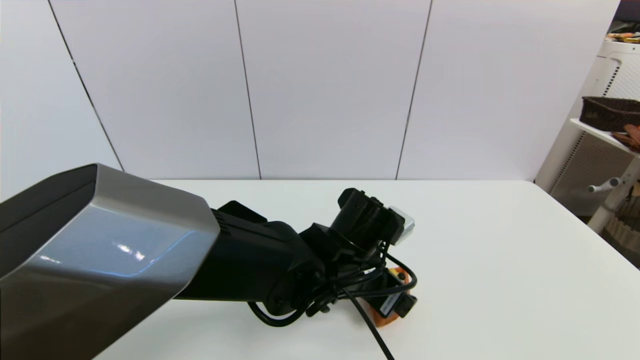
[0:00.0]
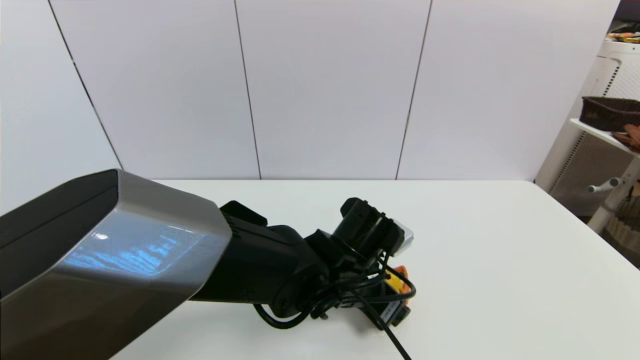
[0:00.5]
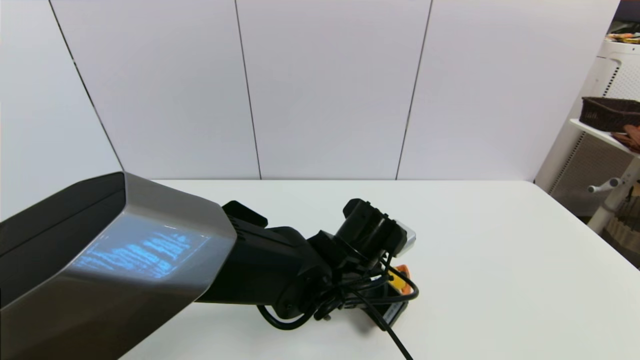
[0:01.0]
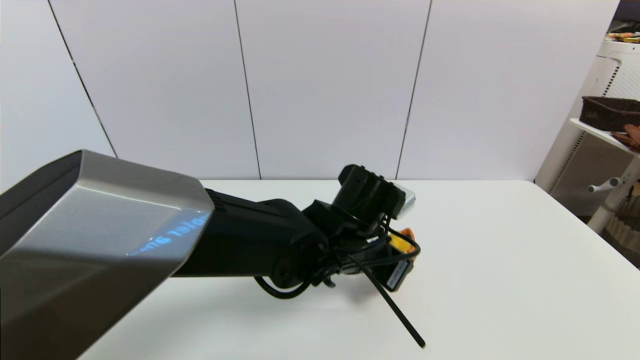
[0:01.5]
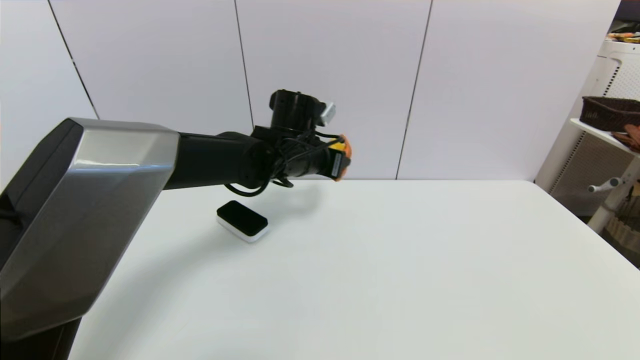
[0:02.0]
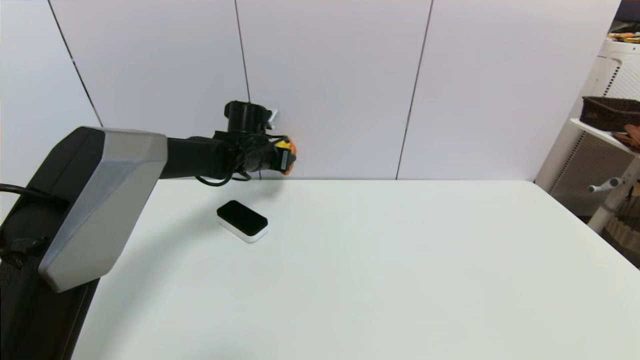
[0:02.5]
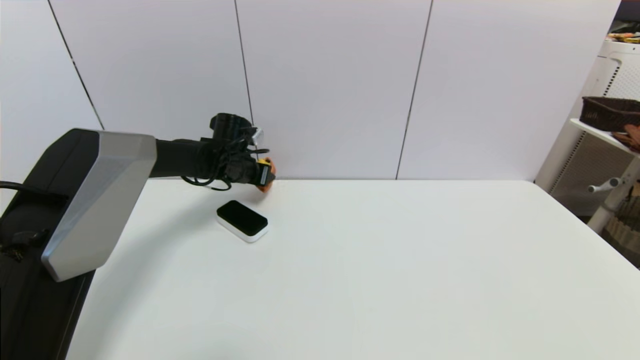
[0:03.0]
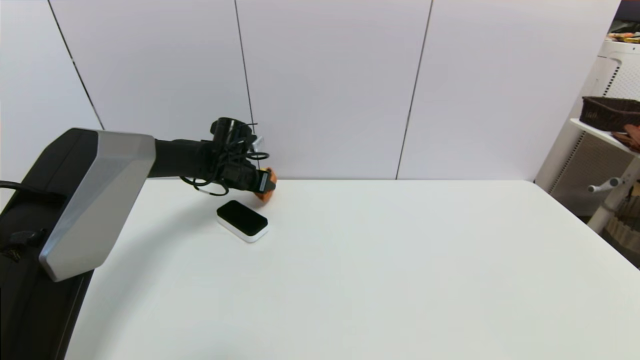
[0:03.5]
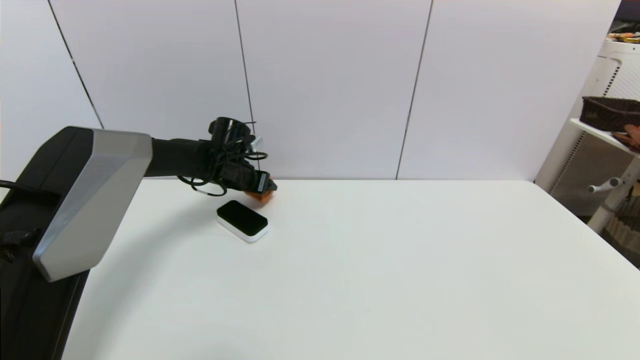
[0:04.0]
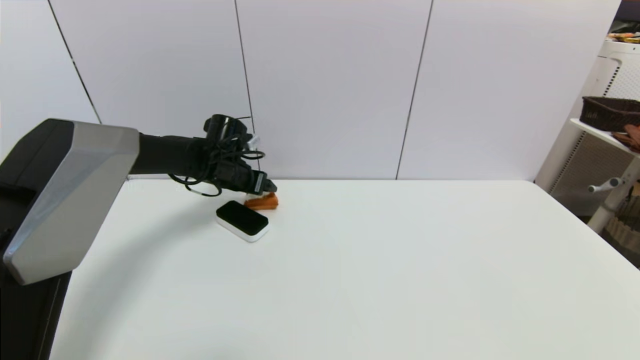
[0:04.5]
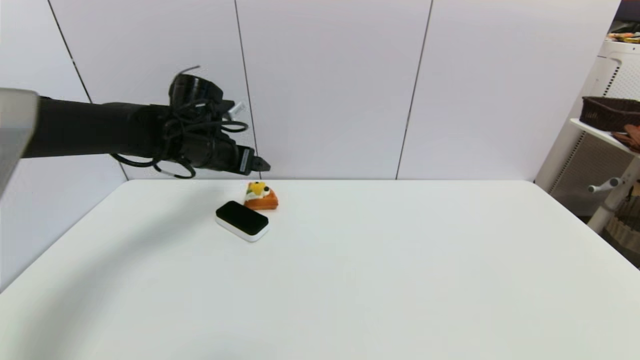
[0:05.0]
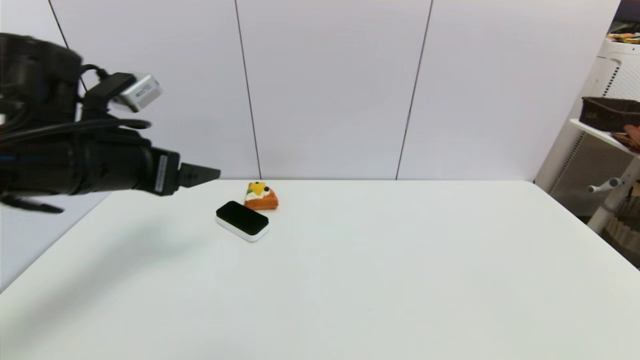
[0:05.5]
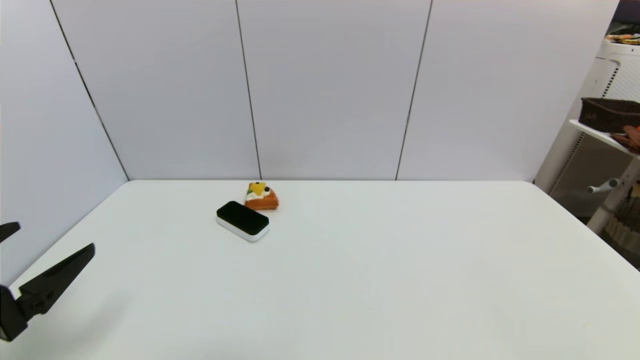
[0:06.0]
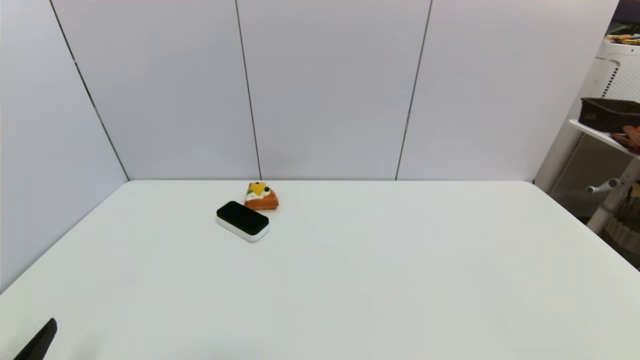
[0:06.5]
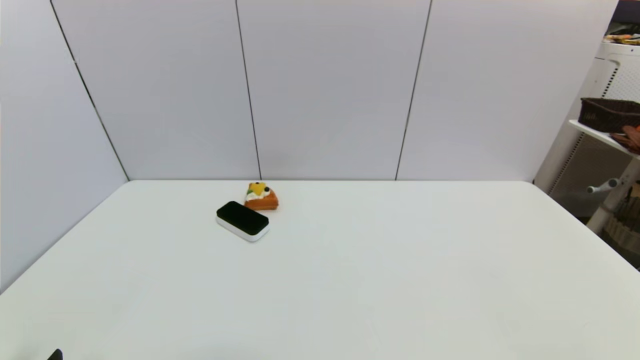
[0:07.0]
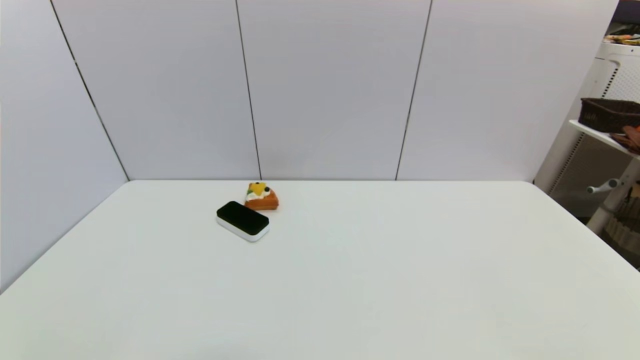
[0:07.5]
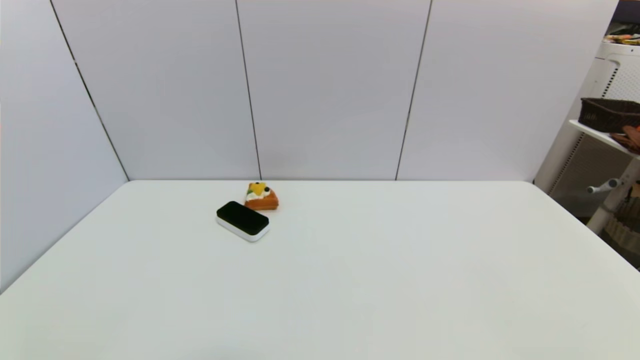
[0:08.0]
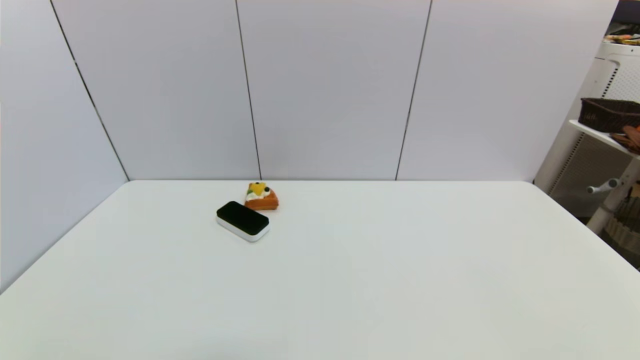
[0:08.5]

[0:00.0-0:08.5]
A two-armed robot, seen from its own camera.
Step, 0:01.5 to 0:04.5: Place the pizza on the table with left gripper.
0:00.0 to 0:02.0: The left gripper goes approximately 20 cm forward, upward and to the left, and closes its fingers.
0:02.0 to 0:04.0: The left gripper goes approximately 15 cm to the left, forward and downward, and opens.
0:04.0 to 0:06.5: The left gripper heads backward, covering about 40 cm, and opens up.
